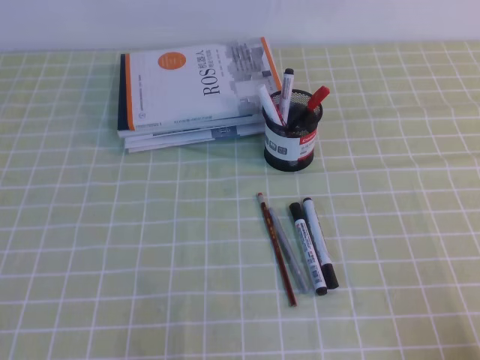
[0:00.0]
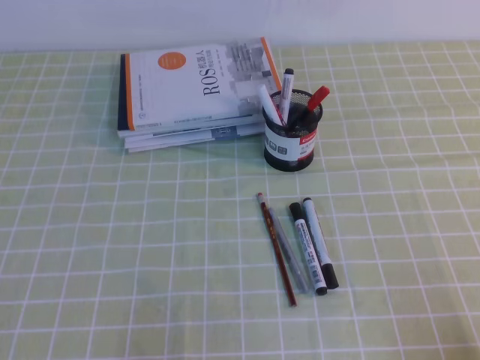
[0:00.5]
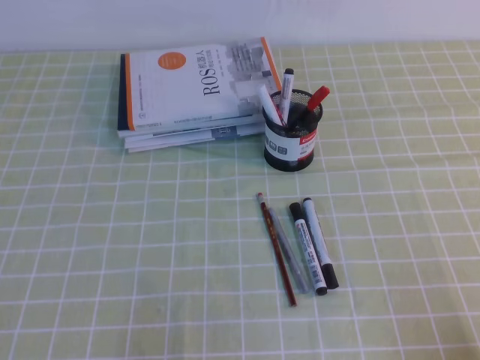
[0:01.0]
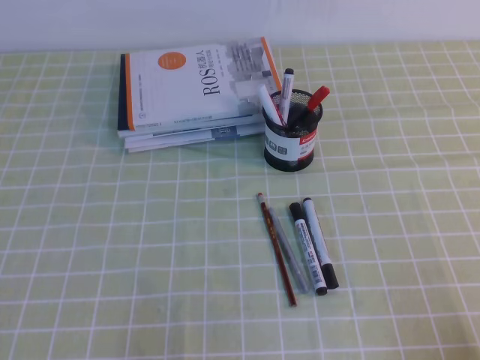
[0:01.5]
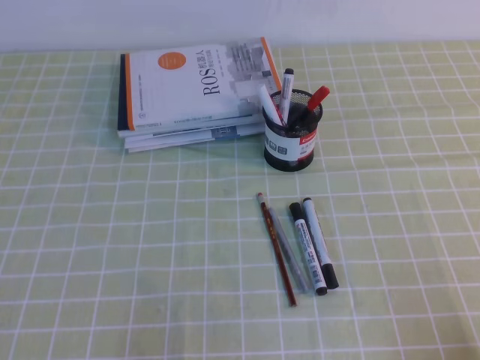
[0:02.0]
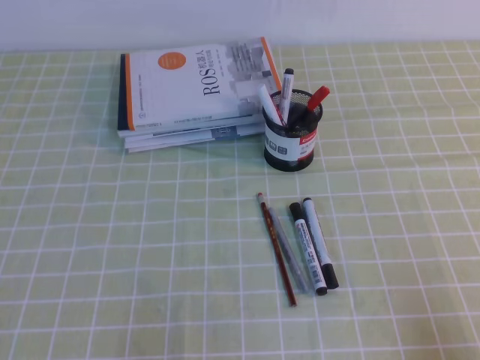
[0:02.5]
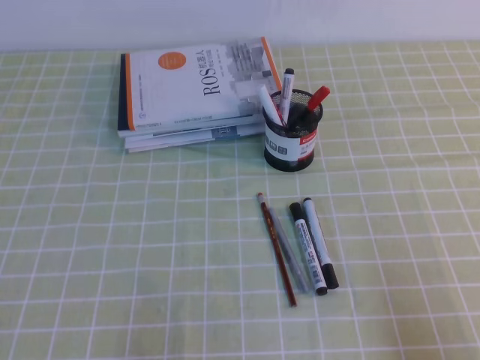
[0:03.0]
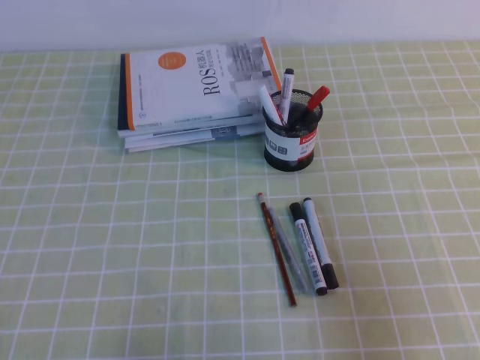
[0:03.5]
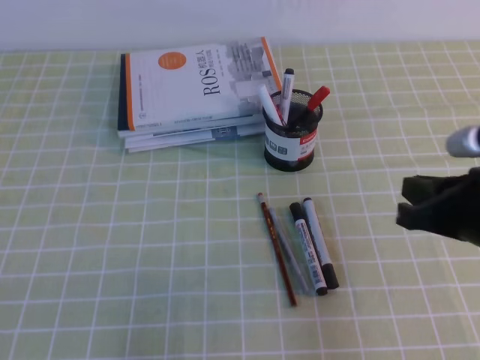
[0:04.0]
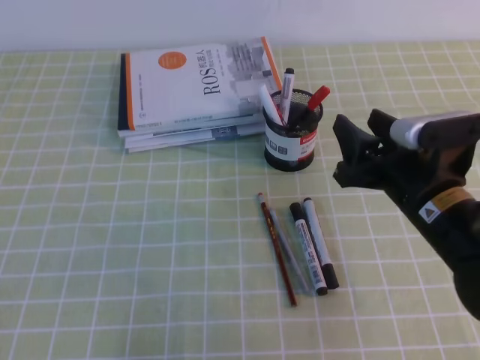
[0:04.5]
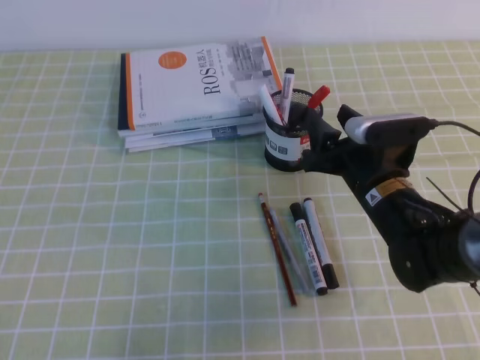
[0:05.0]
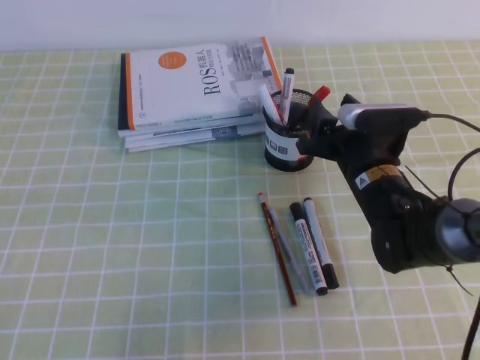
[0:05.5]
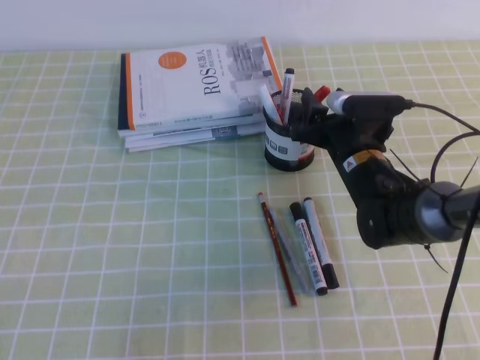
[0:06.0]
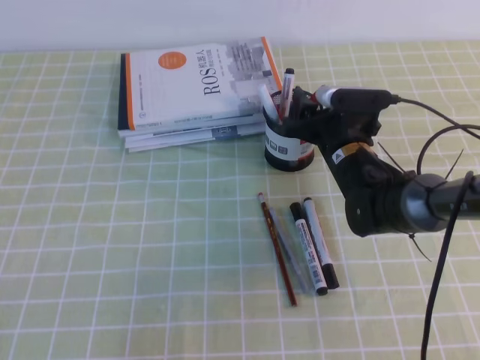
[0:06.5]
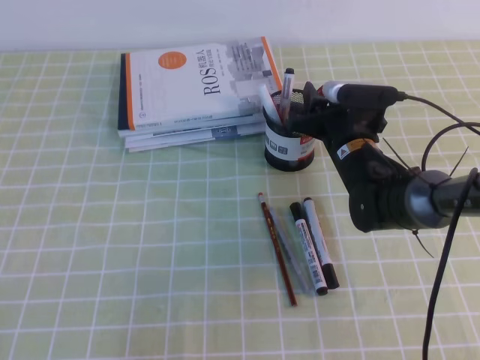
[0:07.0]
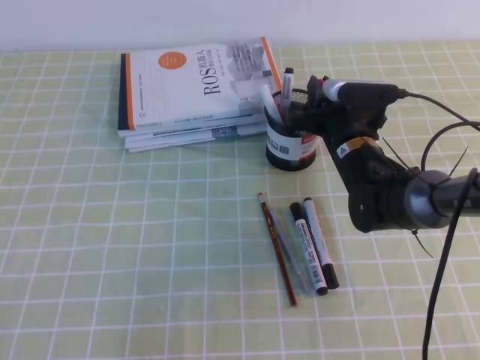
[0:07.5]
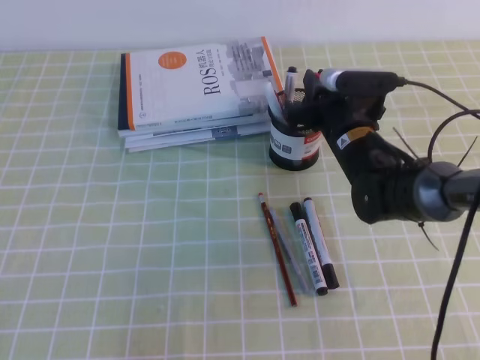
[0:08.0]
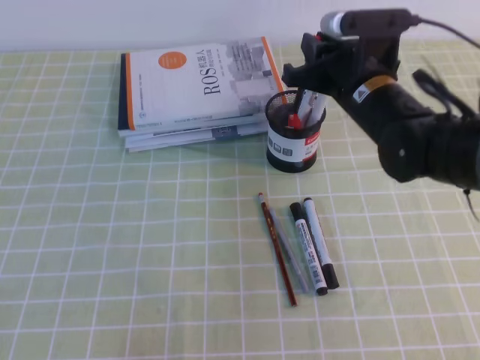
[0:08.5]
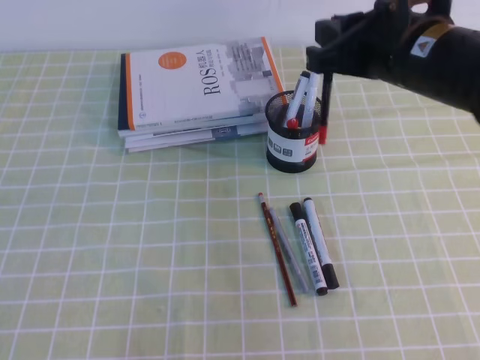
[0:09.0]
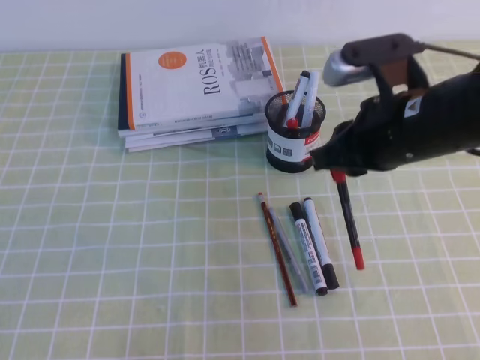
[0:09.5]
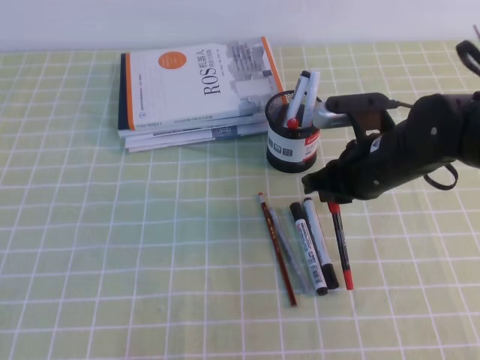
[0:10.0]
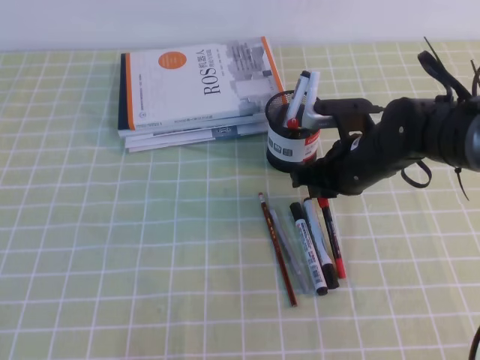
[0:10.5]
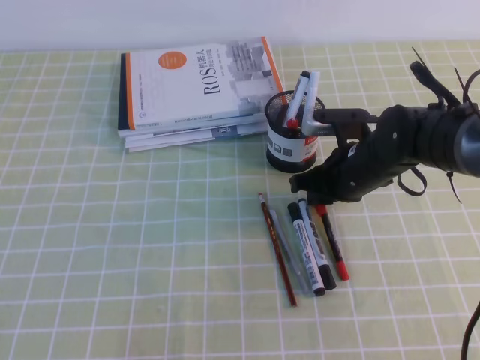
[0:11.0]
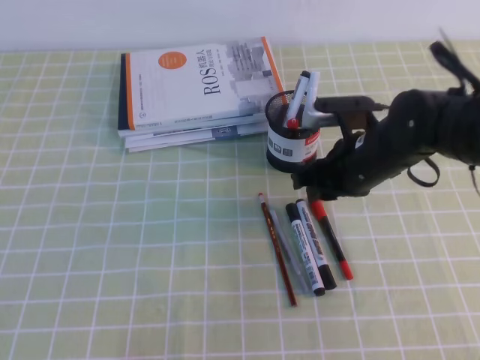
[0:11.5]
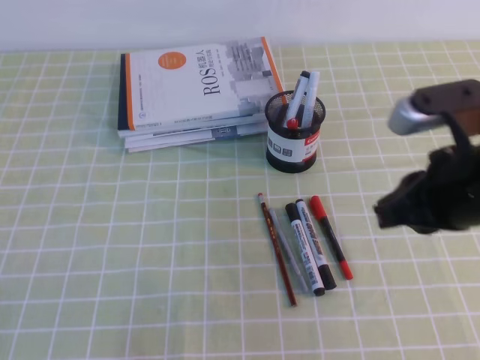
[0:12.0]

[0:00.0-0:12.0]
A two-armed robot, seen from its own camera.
0:00.0 to 0:02.0: Both grippers stay about where they are.
0:02.0 to 0:04.0: The right gripper moves forward, upward and to the left, about 20 cm.
0:04.0 to 0:06.0: The right gripper goes roughly 25 cm forward, to the left and downward, and opens.
0:06.0 to 0:08.0: The right gripper closes.
0:08.0 to 0:10.0: The right gripper is displaced backward by roughly 10 cm, and moves roughly 15 cm upward and comes back.
0:10.0 to 0:12.0: The right gripper shifts roughly 10 cm backward and upward.

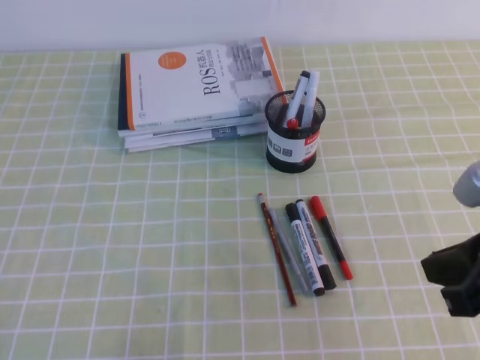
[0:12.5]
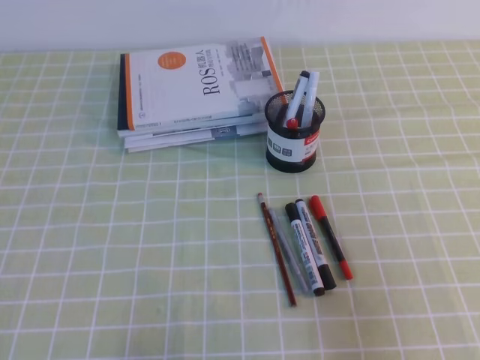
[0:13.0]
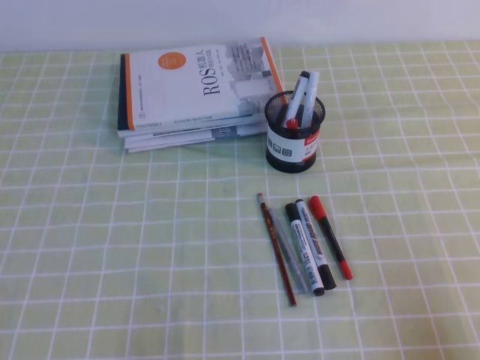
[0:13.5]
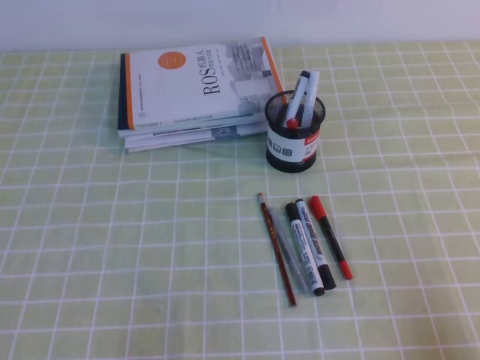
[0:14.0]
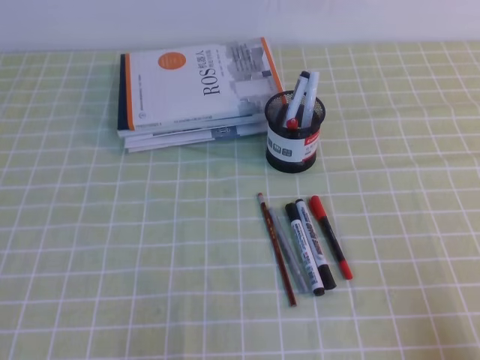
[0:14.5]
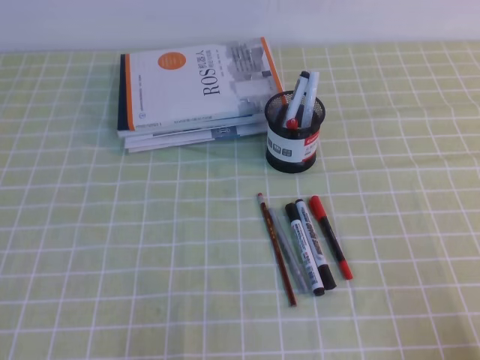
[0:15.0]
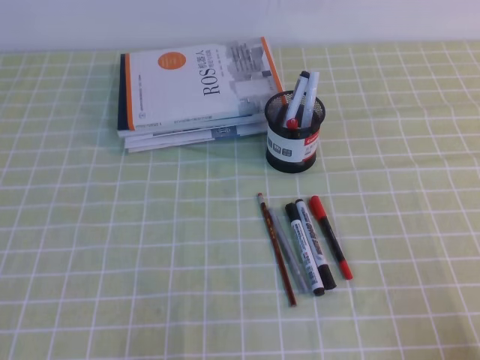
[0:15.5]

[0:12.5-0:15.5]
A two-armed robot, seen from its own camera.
Step, 0:12.5 to 0:15.5: Pick up the pen from the pen holder.
0:12.5 to 0:14.0: The right gripper heads downward, backward and to the right, covering approximately 20 cm.
